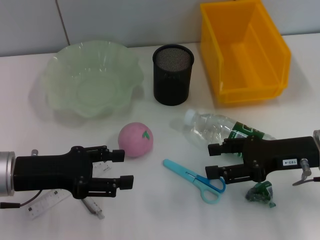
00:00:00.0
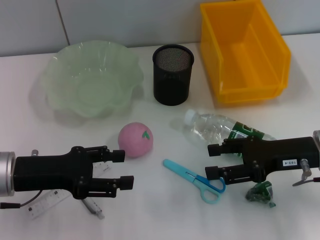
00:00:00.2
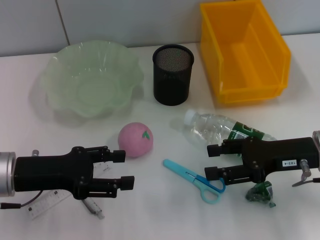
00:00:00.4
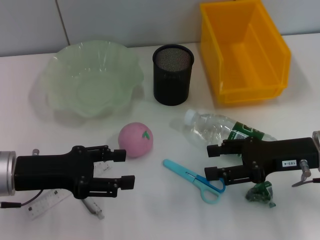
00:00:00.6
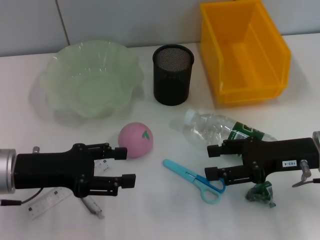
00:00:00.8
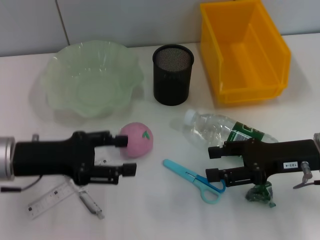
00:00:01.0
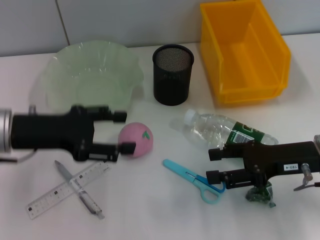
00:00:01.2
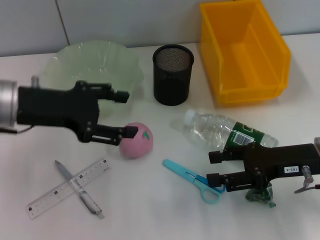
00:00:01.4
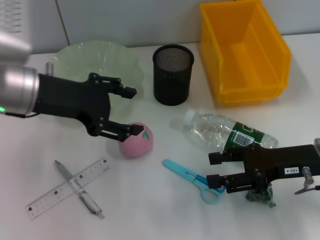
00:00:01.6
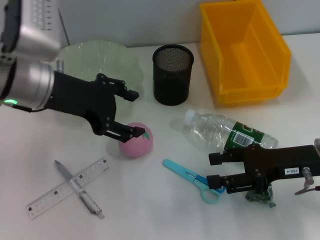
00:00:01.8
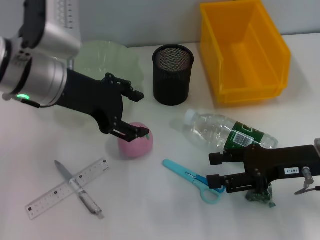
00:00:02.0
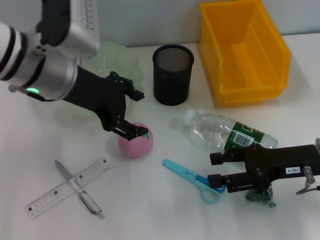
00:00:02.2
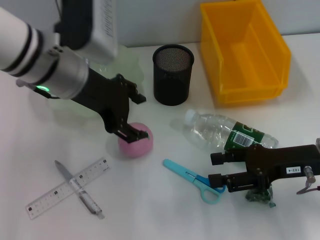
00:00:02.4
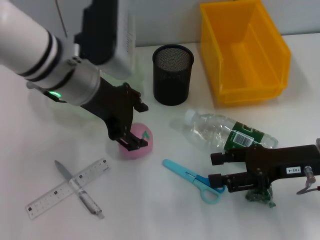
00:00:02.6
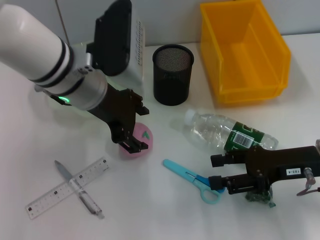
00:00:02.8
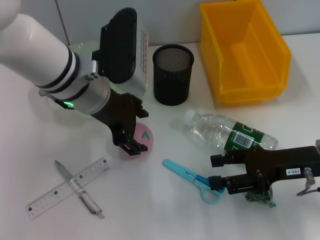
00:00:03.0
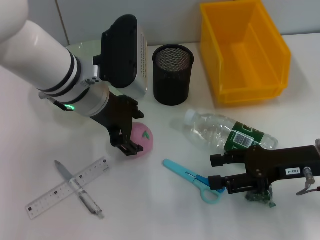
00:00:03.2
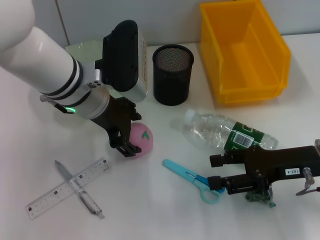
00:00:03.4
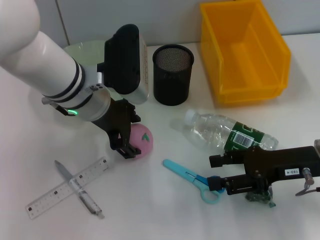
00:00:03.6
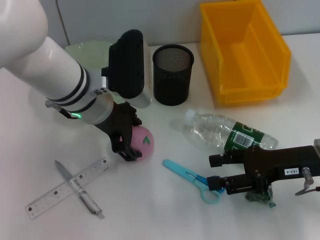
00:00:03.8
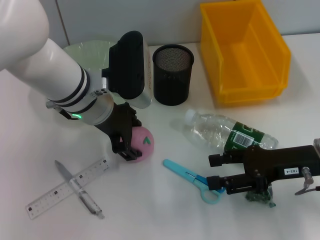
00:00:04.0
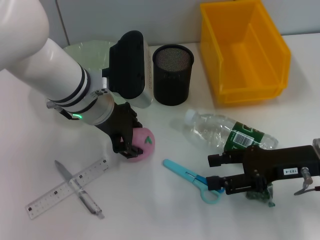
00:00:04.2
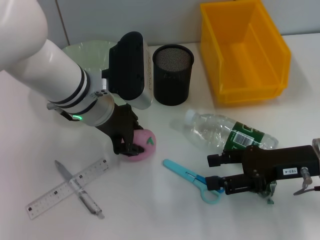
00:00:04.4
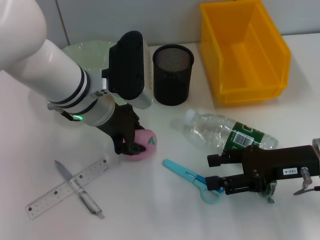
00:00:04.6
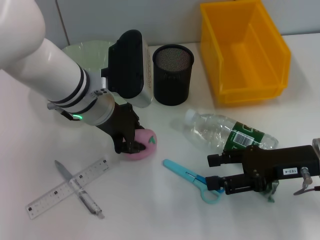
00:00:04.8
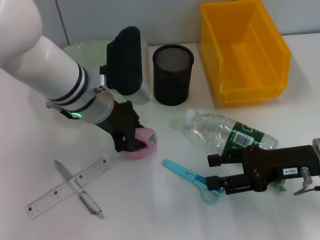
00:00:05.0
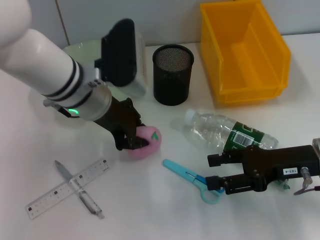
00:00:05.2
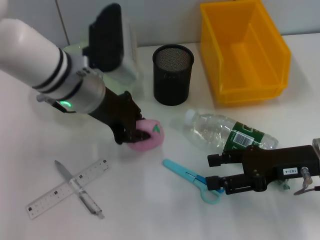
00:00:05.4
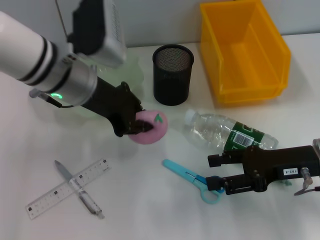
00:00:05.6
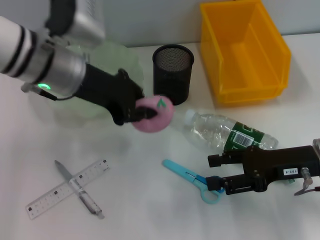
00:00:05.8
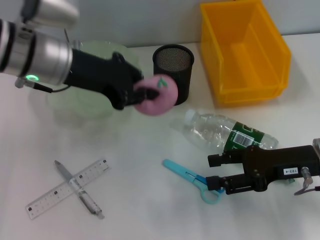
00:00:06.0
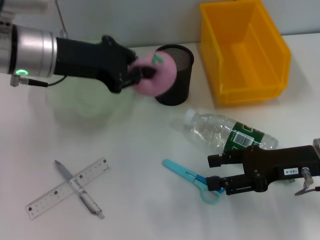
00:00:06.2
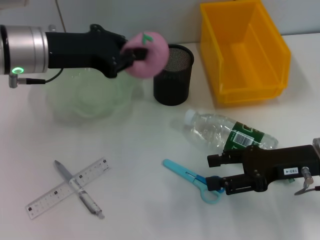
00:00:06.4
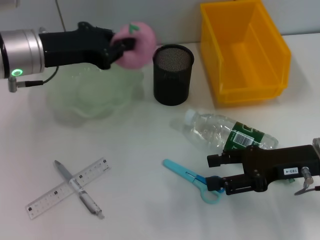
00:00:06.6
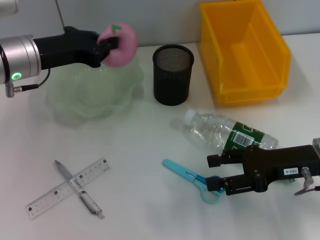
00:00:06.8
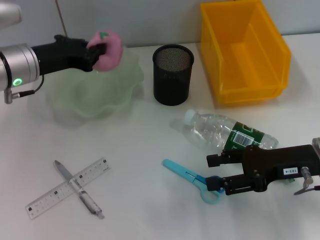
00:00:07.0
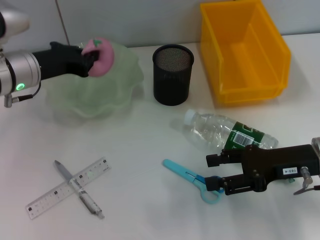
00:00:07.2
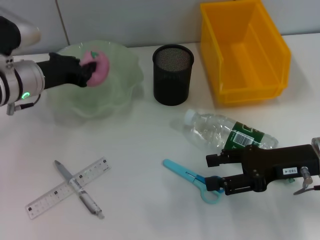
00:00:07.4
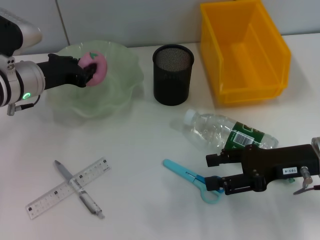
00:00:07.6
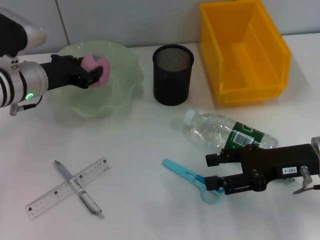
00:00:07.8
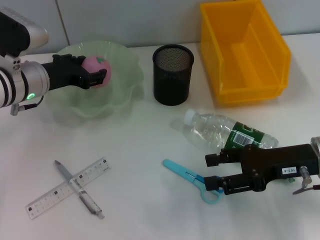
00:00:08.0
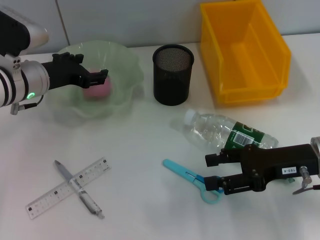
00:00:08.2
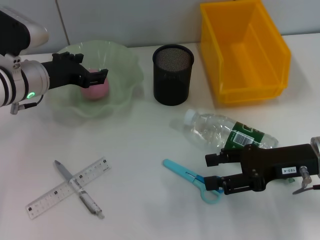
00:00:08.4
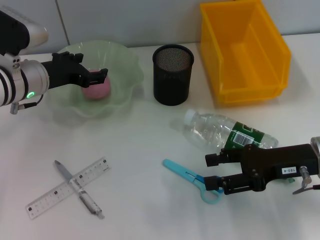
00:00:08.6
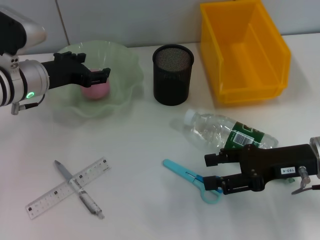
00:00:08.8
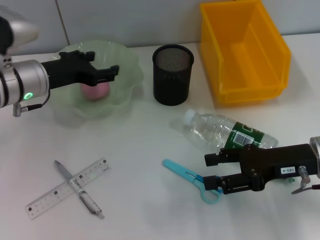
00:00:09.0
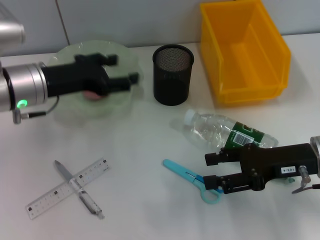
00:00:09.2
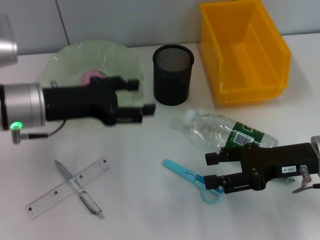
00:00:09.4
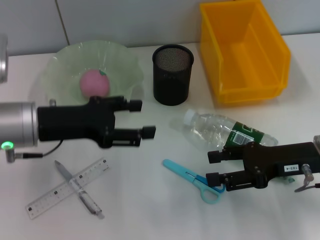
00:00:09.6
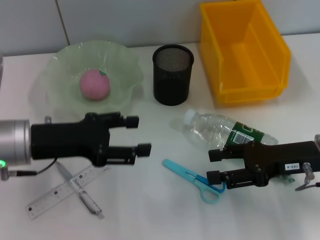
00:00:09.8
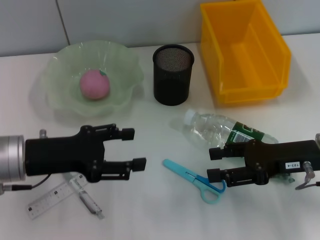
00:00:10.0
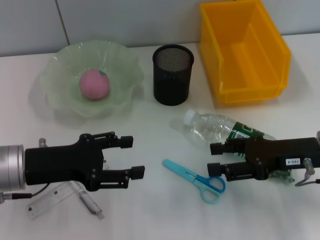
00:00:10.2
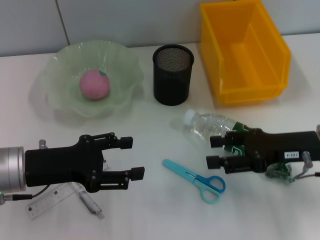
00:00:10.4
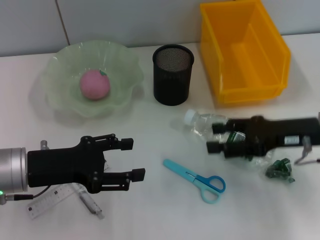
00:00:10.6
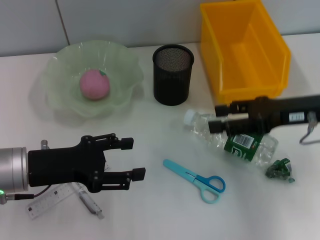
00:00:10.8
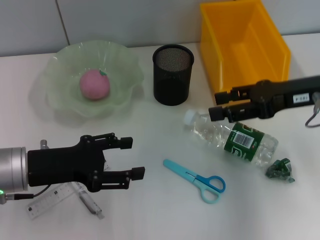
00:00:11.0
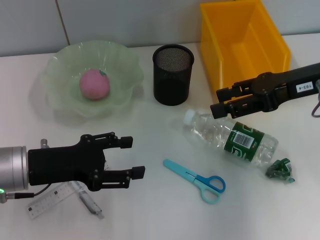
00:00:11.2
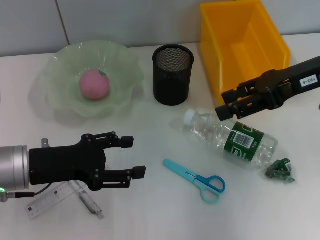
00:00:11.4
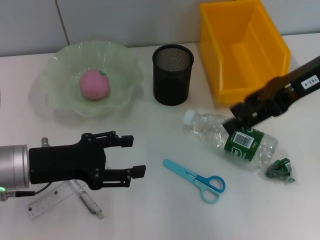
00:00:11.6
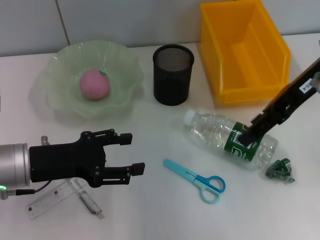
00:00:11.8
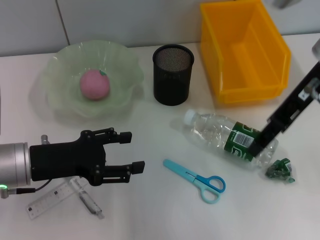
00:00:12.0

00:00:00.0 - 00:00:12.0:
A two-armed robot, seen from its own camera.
Step, 00:00:00.0 - 00:00:04.4: Grab the peach with the left hand.
Step, 00:00:04.6 - 00:00:08.0: Place the peach into the fruit bowl with the left hand.
00:00:00.0 - 00:00:01.6: The left gripper is displaced upward, forward and to the right by approximately 15 cm.
00:00:01.6 - 00:00:03.0: The left gripper goes approximately 10 cm to the right.
00:00:03.0 - 00:00:04.4: The grippers stay close to where they were, moving slightly.
00:00:04.4 - 00:00:06.0: The left gripper moves upward and to the left, about 10 cm, and closes up.
00:00:06.0 - 00:00:07.6: The left gripper heads downward and to the left, covering approximately 10 cm.
00:00:07.6 - 00:00:09.0: The left gripper opens up.
00:00:09.0 - 00:00:10.4: The left gripper shifts about 10 cm backward.
00:00:10.4 - 00:00:12.0: The right gripper goes roughly 20 cm upward, forward and to the left.

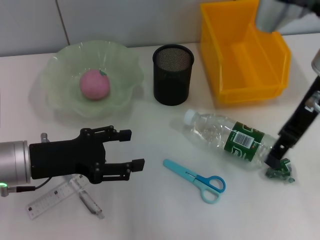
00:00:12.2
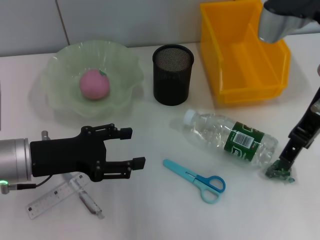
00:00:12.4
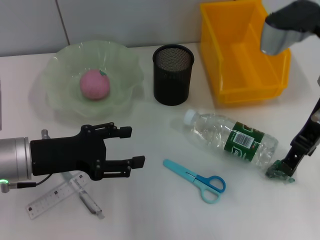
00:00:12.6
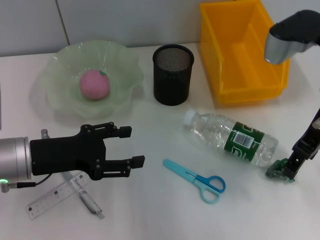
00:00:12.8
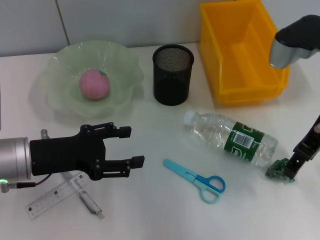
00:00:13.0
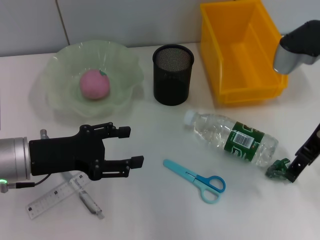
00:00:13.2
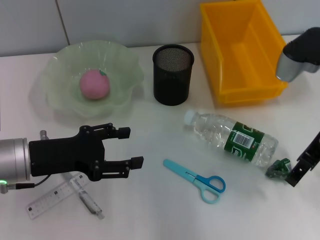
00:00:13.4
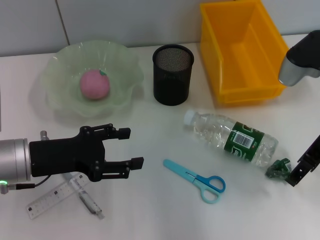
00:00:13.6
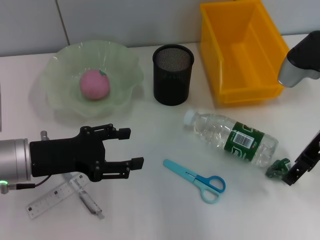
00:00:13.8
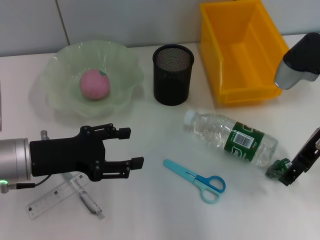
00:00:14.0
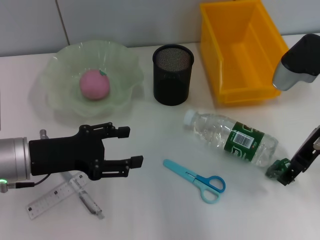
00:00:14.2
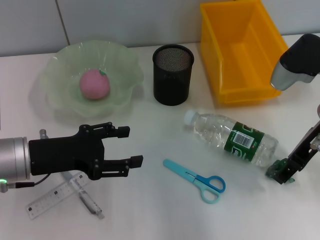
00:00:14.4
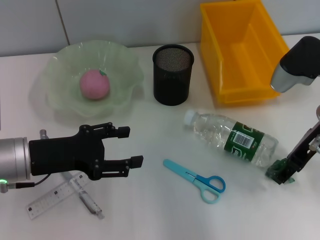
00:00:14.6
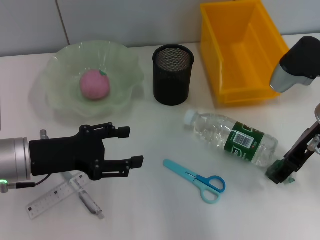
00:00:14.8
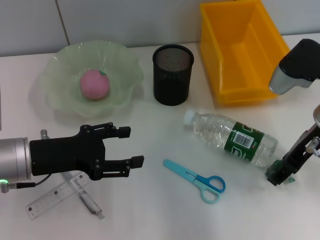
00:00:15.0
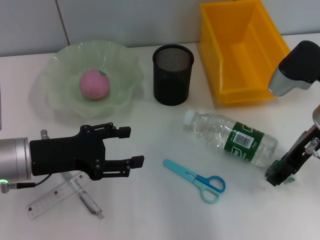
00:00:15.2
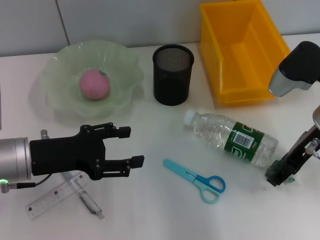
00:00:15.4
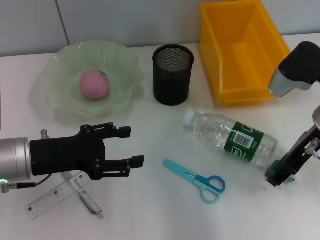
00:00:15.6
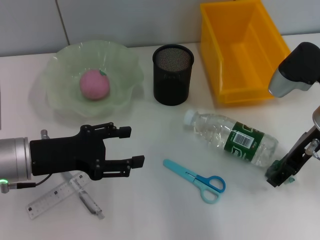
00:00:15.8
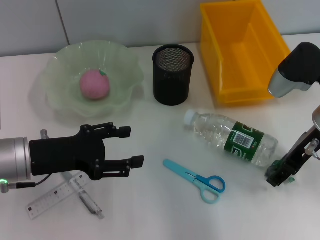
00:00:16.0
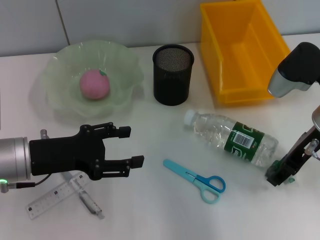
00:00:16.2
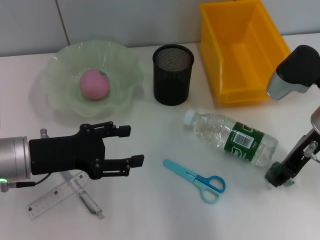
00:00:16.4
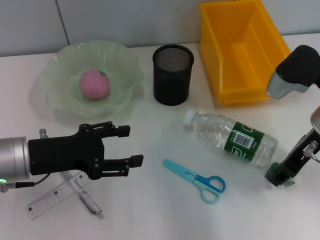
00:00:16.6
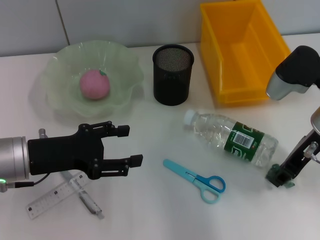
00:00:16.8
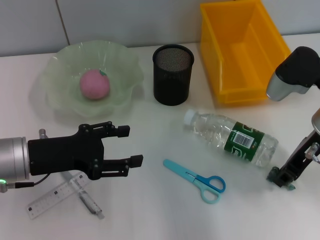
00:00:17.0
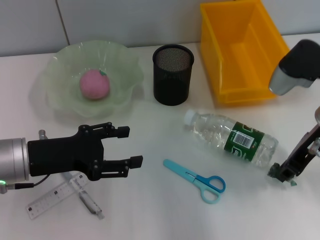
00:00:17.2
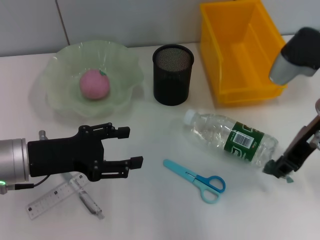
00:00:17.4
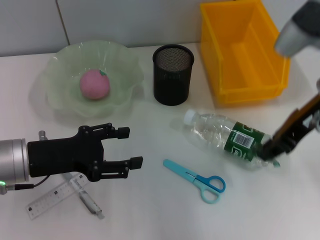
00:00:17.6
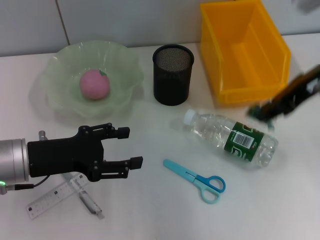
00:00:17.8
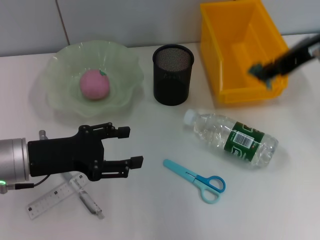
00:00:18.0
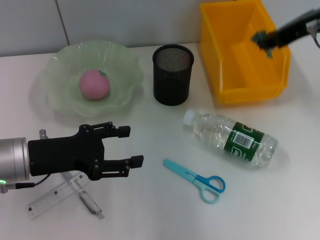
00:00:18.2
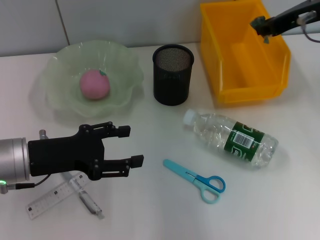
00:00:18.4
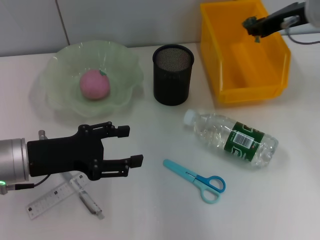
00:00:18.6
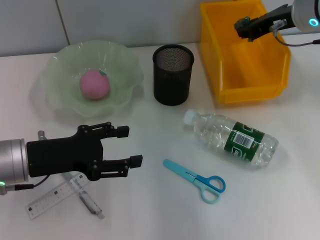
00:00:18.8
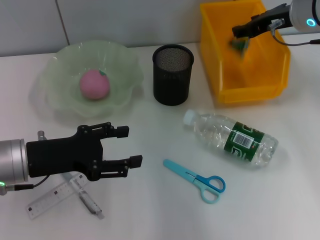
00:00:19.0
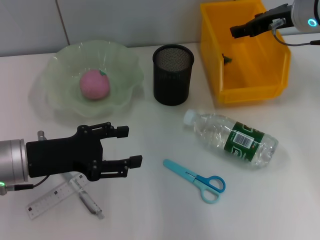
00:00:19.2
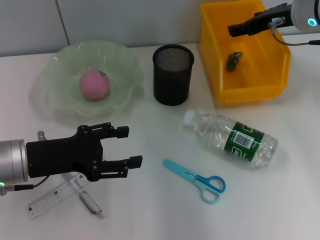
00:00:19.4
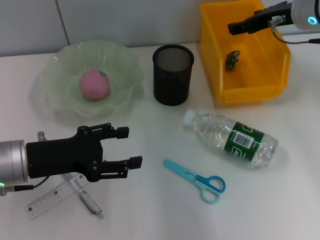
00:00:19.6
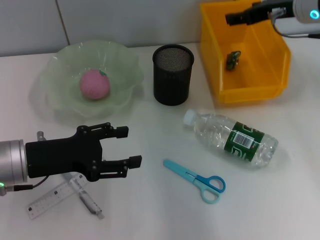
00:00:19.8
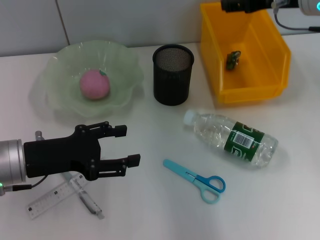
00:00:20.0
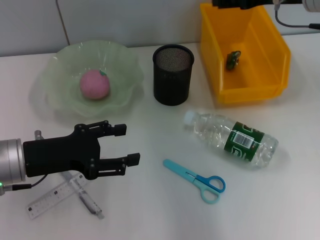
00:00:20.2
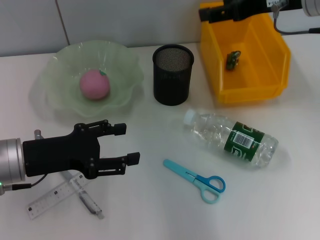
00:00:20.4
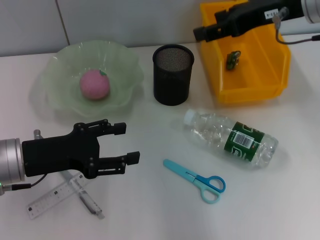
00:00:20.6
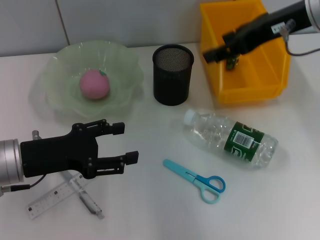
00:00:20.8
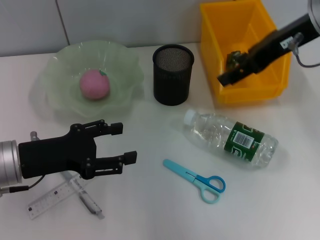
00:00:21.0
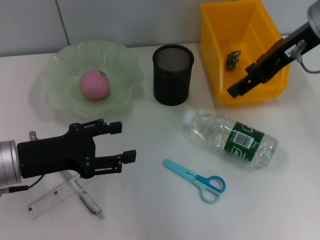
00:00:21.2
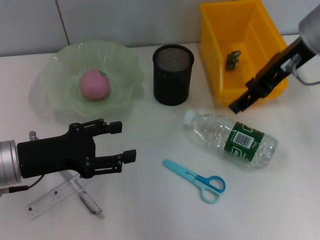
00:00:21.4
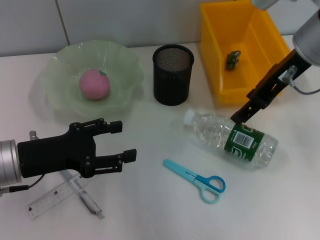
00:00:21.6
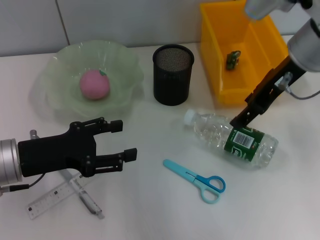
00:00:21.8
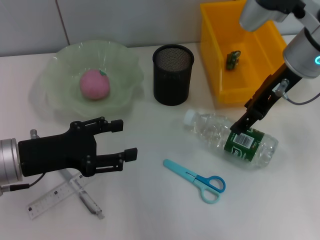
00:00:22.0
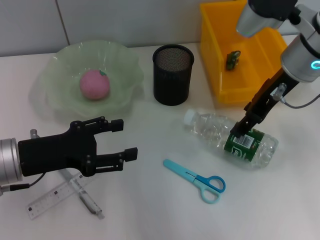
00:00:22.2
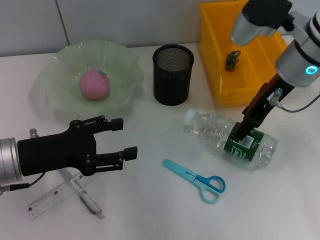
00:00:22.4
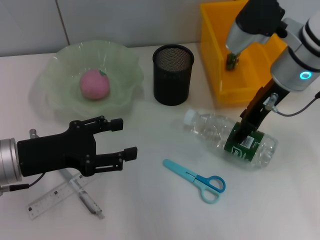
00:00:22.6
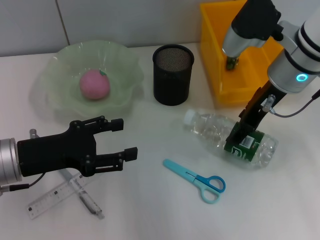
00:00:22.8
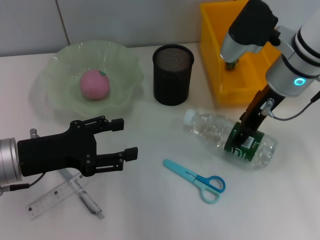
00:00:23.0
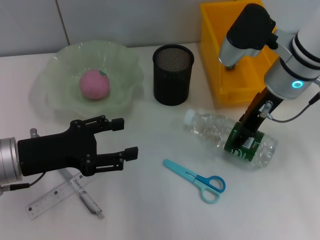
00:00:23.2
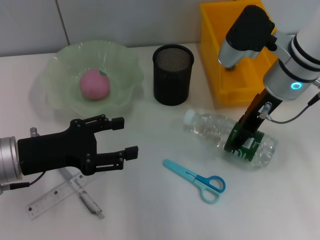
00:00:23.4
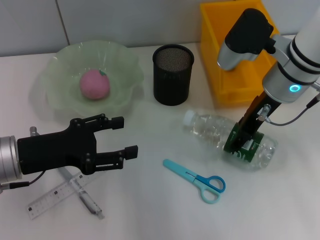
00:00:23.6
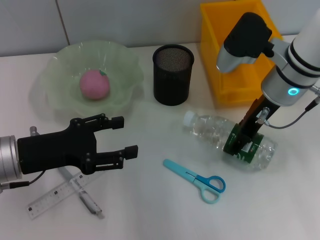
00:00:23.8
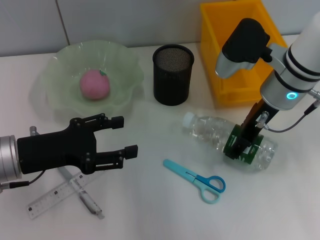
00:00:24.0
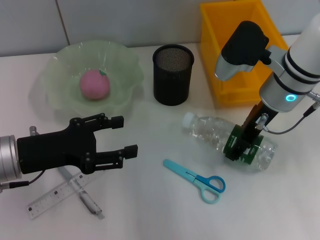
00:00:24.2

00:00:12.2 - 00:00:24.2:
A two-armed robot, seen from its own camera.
Step, 00:00:12.2 - 00:00:16.6: Grab the plastic with the right hand.
Step, 00:00:16.8 - 00:00:19.2: Place the plastic into the trash can with the right hand.
00:00:12.2 - 00:00:13.8: The right gripper shifts some 5 cm downward.
00:00:13.8 - 00:00:15.2: The grippers make only small movements.
00:00:15.2 - 00:00:16.6: Both grippers stay about where they are.
00:00:16.6 - 00:00:18.2: The right gripper is displaced upward and forward by approximately 15 cm.
00:00:18.2 - 00:00:19.8: The right gripper moves some 5 cm, and opens up.
00:00:19.8 - 00:00:21.2: The right gripper is displaced backward and upward by roughly 10 cm.
00:00:21.2 - 00:00:22.6: The right gripper travels downward by roughly 5 cm.
00:00:22.6 - 00:00:24.2: The grippers make only small movements.
